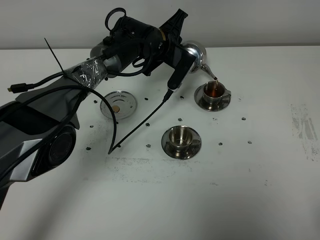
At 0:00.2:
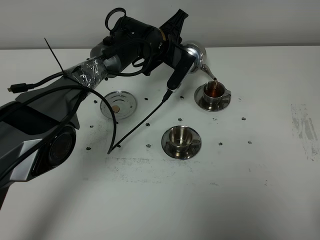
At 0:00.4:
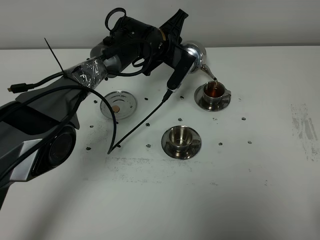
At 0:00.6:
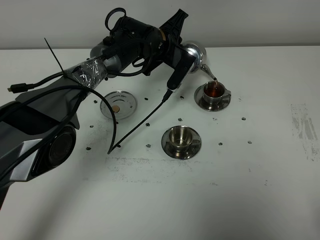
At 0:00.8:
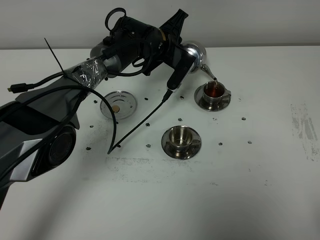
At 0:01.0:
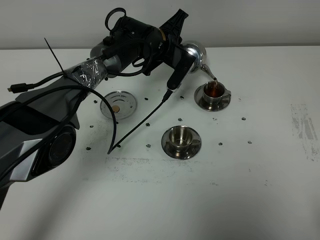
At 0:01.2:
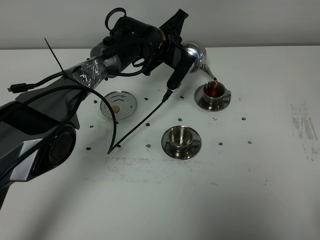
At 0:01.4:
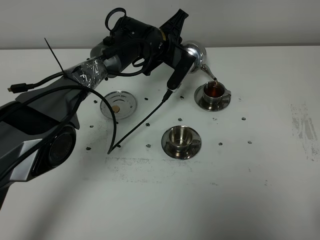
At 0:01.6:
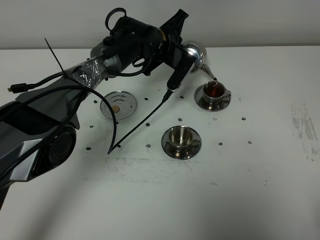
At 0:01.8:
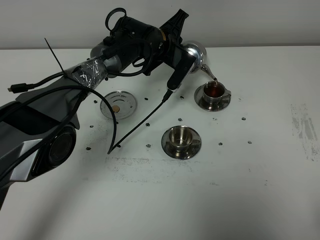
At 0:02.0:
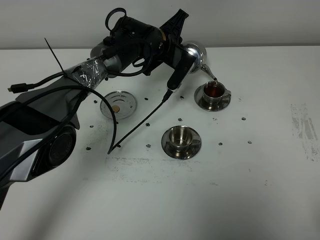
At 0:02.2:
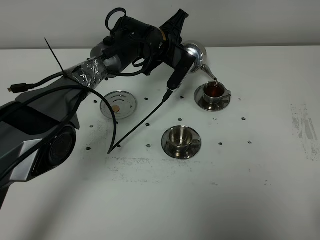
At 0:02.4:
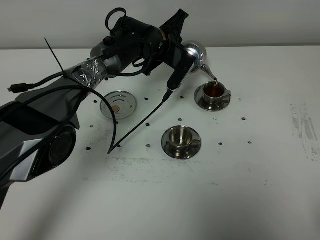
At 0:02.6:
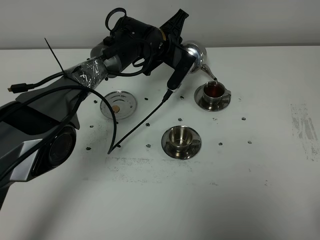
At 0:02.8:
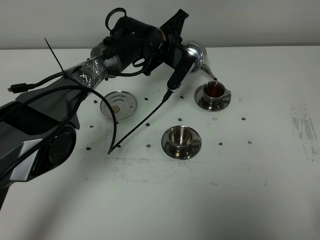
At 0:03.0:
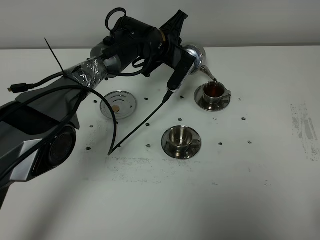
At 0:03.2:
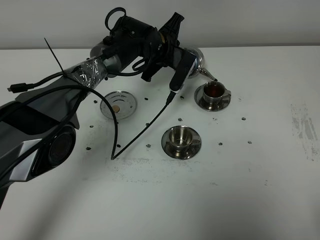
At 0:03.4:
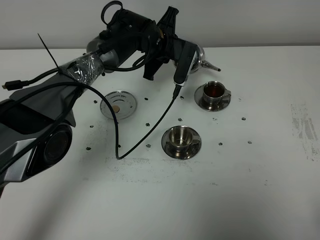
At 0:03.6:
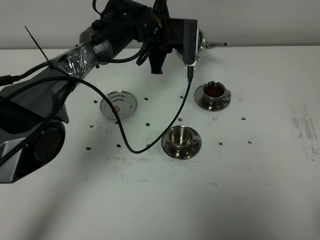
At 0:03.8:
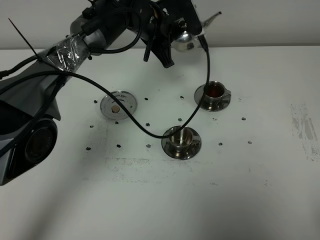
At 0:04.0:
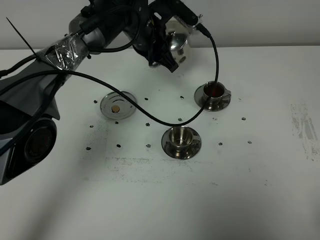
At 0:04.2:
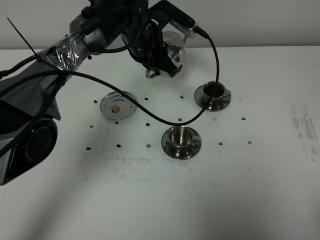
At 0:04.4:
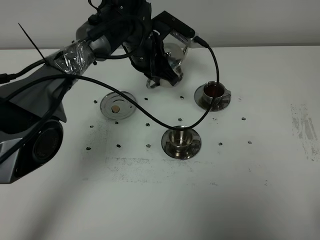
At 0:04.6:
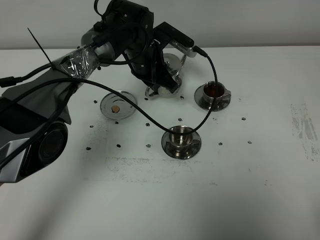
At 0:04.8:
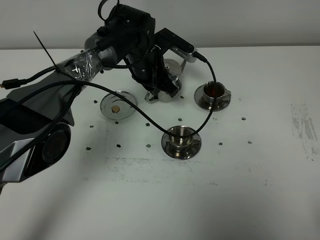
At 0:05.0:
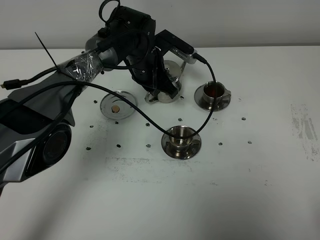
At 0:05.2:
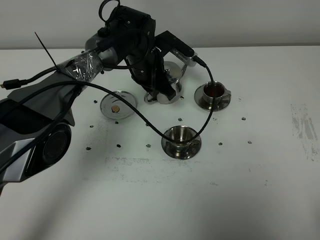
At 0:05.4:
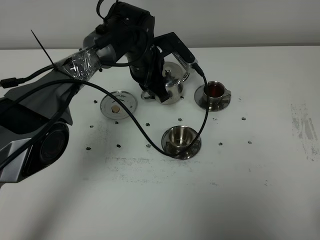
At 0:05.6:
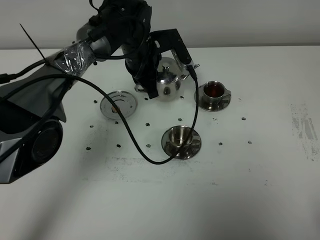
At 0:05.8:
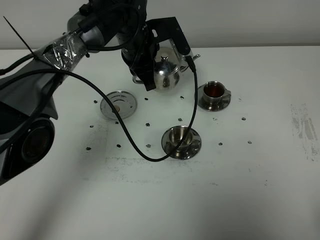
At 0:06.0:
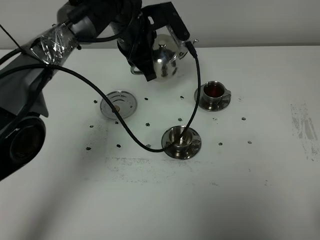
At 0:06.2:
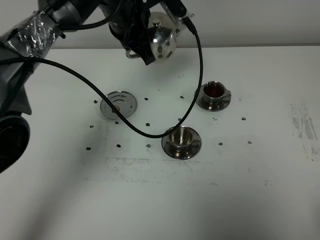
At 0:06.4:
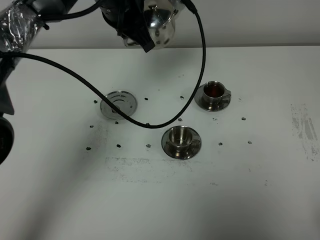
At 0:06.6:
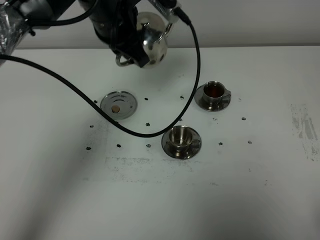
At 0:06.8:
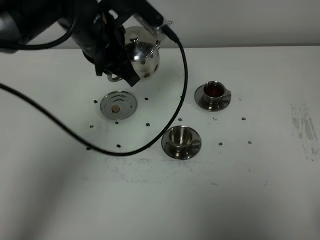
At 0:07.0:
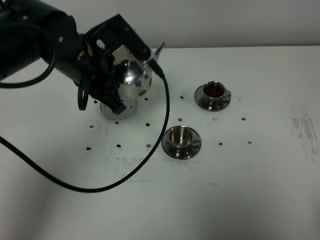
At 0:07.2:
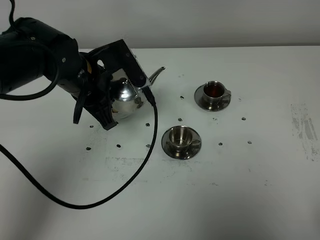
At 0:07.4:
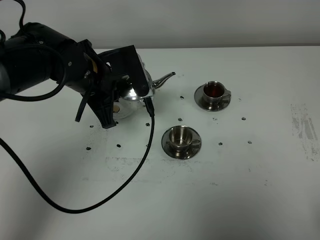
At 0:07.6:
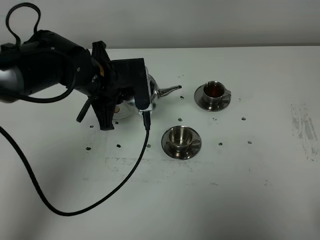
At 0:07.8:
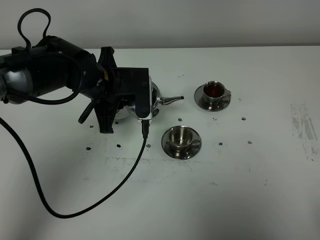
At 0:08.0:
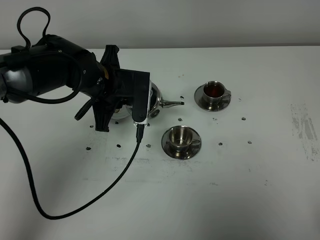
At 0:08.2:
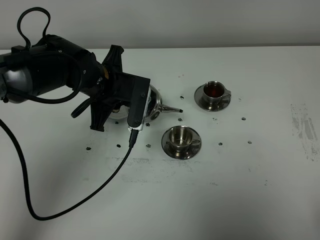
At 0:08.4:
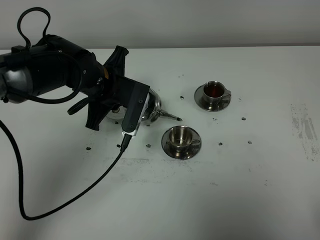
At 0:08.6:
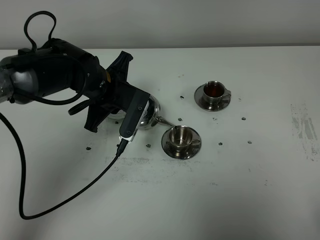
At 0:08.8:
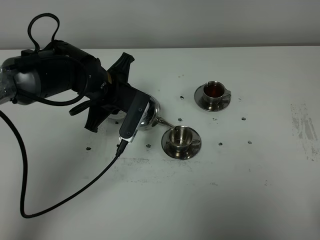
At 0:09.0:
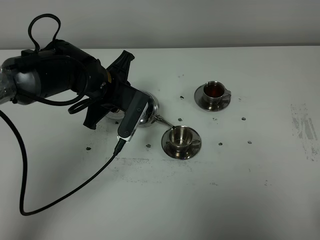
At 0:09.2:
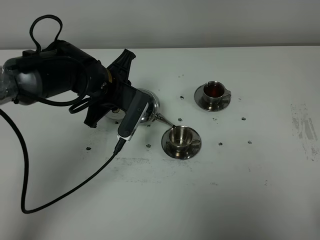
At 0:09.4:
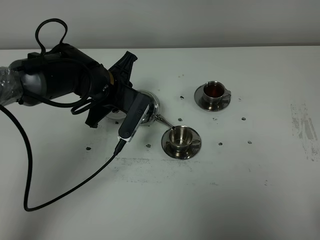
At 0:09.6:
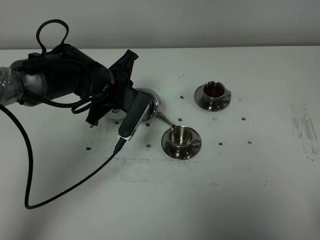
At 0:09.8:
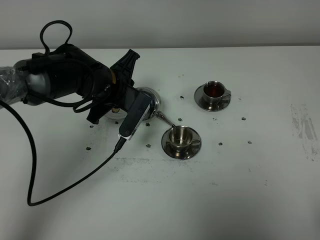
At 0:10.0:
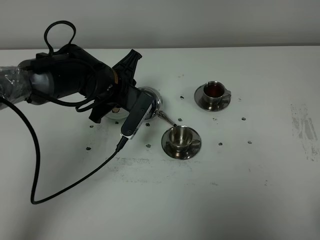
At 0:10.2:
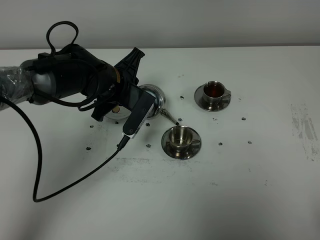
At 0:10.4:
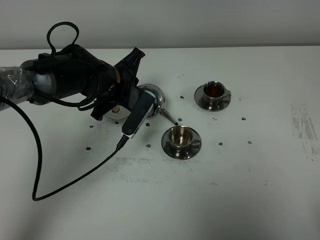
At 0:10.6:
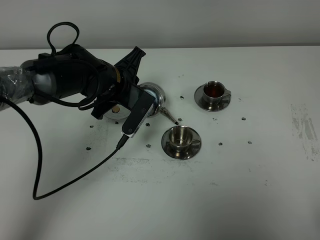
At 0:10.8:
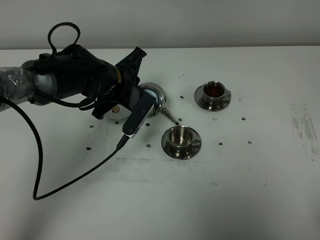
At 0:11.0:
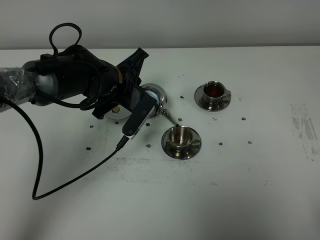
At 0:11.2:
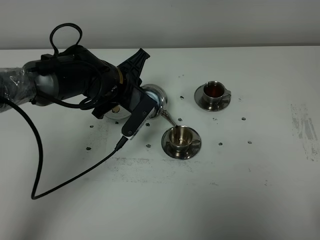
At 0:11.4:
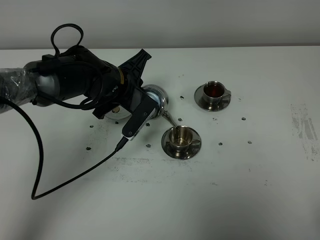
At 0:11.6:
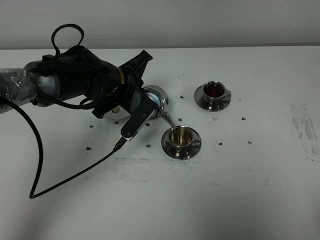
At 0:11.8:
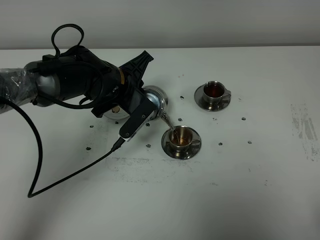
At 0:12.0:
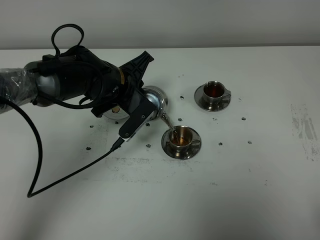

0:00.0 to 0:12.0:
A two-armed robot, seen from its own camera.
Task of the whole recording: grasp the stainless steel teapot and pour the tea into the two stainless steel teacups one by one, put the stainless steel teapot back in its original place.
0:00.0 to 0:03.0: Neither gripper changes place.
0:03.0 to 0:04.4: The left gripper moves approximately 5 cm.
0:04.4 to 0:06.0: The left gripper goes roughly 5 cm upward.
0:06.0 to 0:07.6: The left gripper travels backward and to the left by approximately 10 cm.
0:09.0 to 0:12.0: The grippers make only small movements.

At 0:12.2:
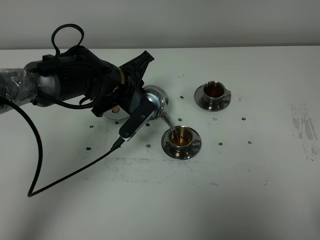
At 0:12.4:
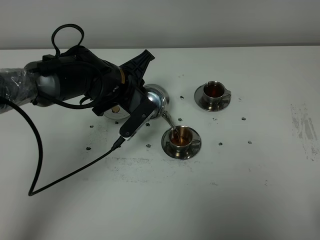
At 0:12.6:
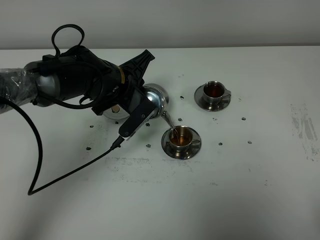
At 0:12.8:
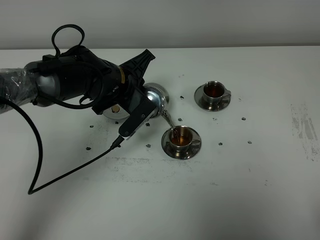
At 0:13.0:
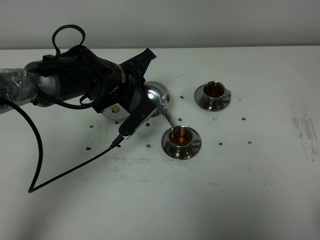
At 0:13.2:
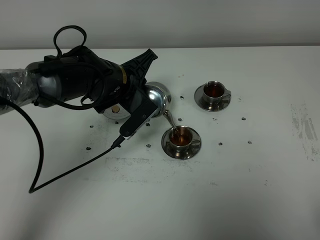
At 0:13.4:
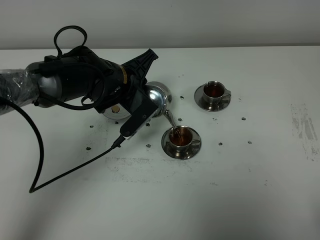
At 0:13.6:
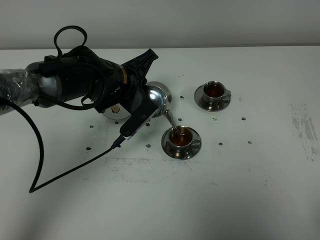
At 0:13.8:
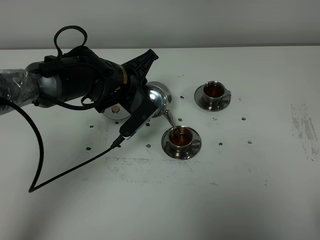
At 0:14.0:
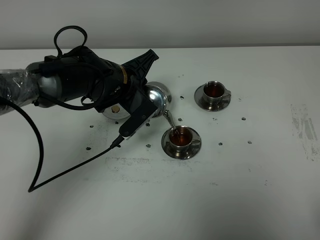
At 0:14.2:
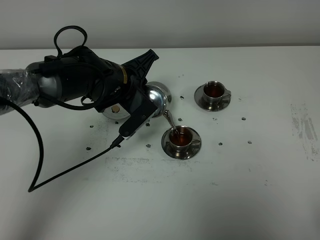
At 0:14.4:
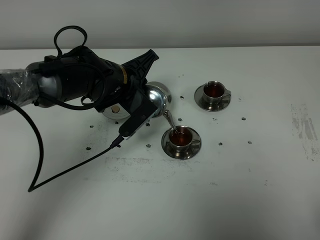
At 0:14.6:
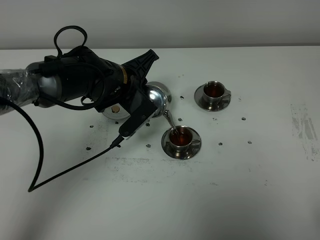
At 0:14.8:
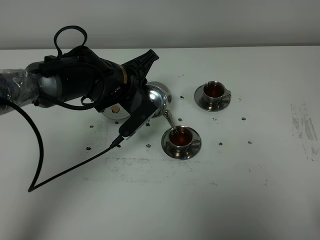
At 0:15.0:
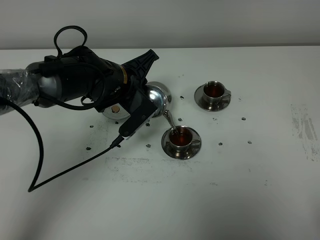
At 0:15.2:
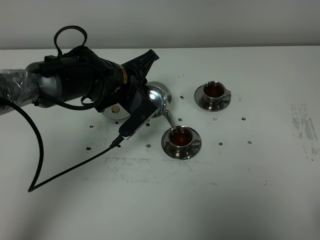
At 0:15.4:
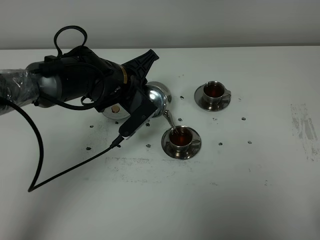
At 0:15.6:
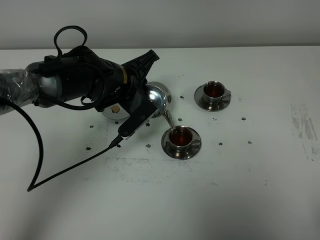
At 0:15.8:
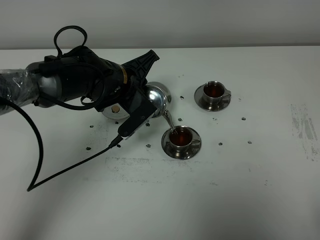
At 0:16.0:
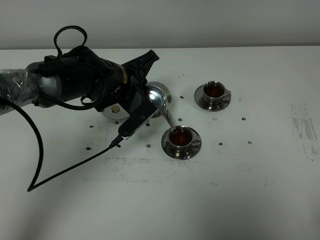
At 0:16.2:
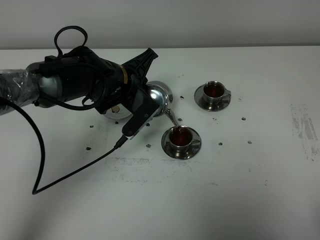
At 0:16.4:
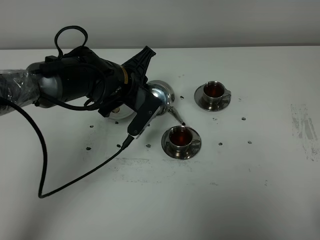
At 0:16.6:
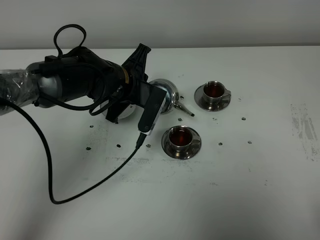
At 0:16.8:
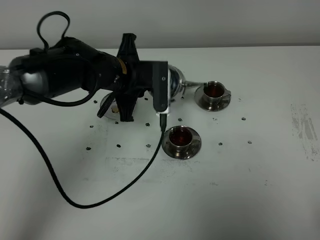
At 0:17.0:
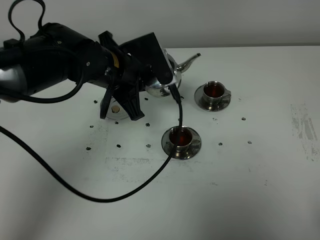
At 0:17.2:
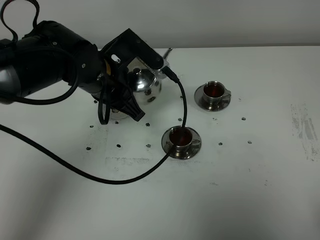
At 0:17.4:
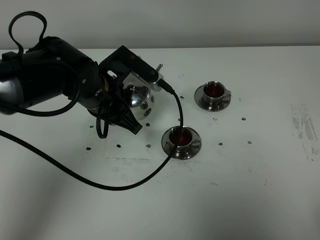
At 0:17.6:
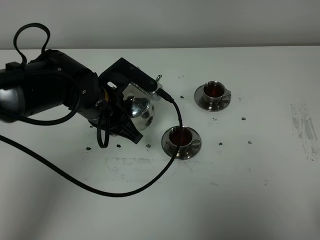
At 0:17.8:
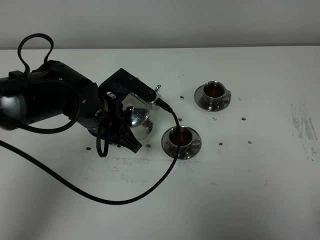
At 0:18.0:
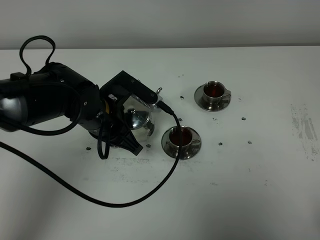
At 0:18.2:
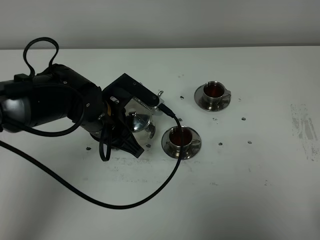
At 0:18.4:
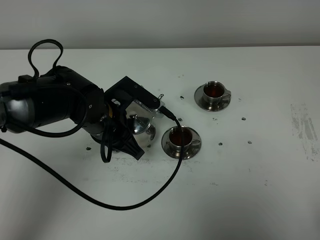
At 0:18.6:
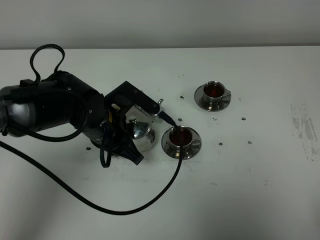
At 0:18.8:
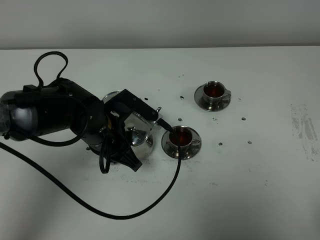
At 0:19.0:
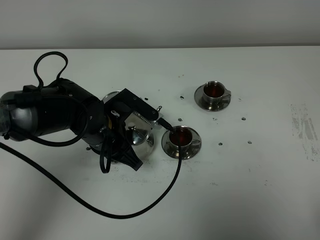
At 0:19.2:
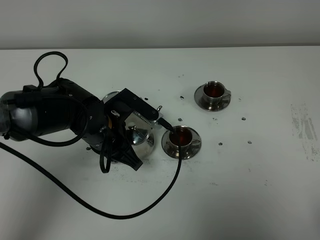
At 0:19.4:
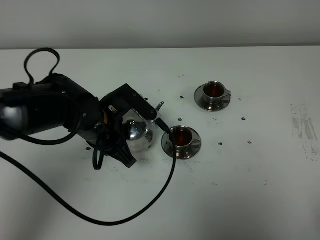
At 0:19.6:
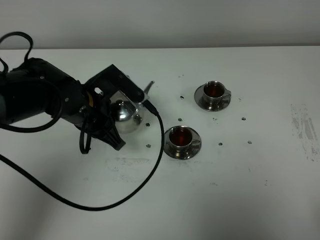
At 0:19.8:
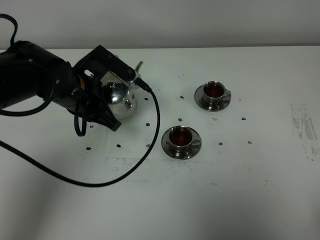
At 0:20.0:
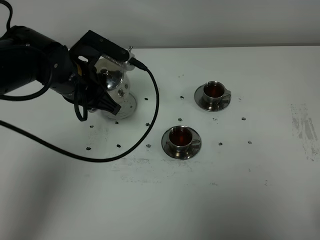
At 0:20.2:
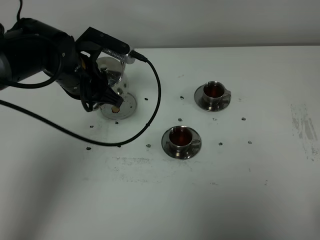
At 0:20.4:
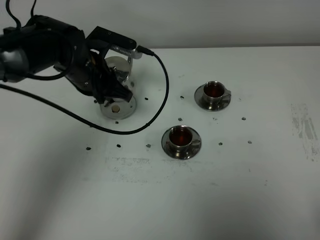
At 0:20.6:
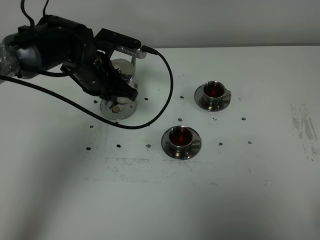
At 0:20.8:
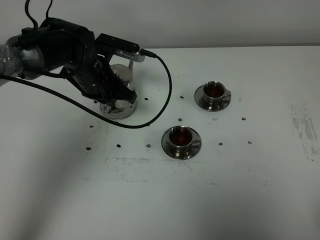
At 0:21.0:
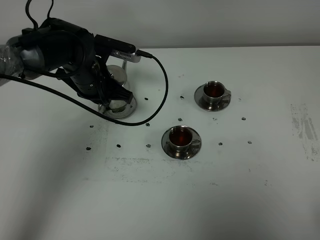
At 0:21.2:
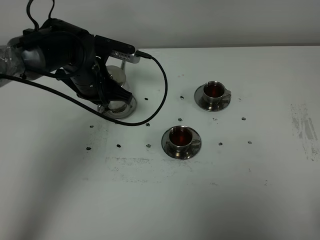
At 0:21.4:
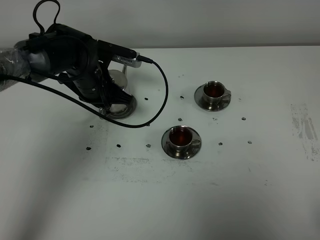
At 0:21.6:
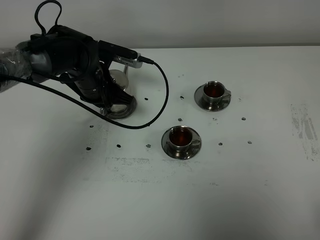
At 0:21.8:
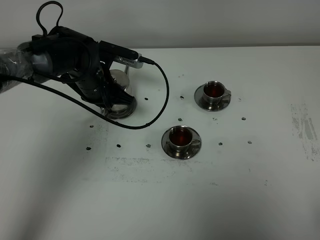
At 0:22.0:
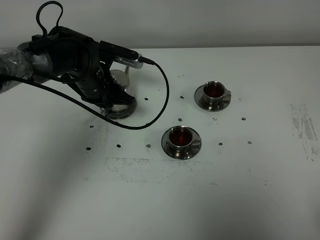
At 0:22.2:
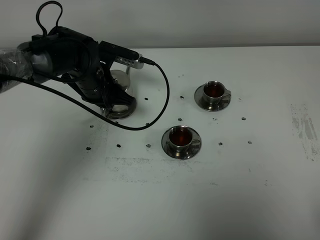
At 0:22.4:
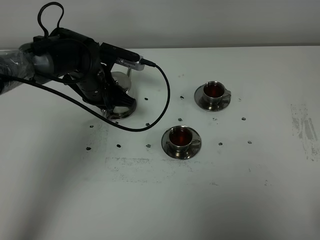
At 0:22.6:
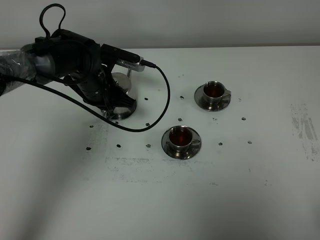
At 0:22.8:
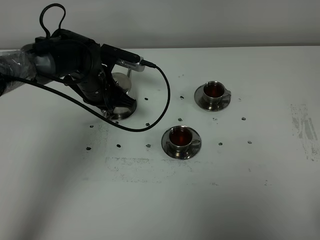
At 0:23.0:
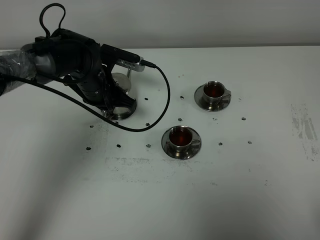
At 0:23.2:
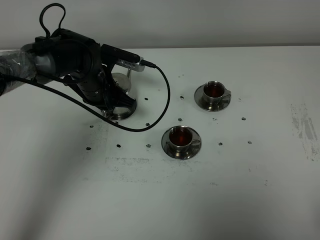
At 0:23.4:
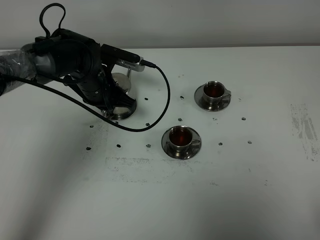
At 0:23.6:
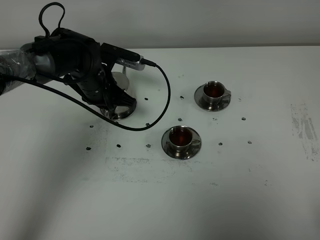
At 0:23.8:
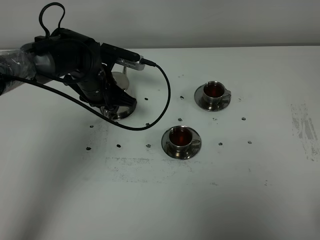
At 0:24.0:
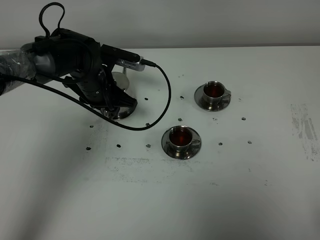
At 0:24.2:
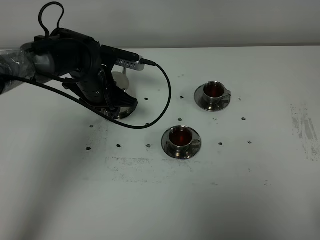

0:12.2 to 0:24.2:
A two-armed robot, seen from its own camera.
Task of the whole recording: grasp the stainless steel teapot and pour the tea into the two stainless steel teacups one by one, put the stainless steel teapot back in its original place.
Step, 0:12.2 to 0:16.4: Pour tea into the teacup with the left gripper.
0:12.2 to 0:13.8: Neither gripper changes place.
0:13.8 to 0:15.2: Both grippers stay put.
0:16.6 to 0:18.2: The left gripper goes roughly 5 cm backward.
0:18.2 to 0:19.8: The left gripper changes place by approximately 5 cm.
0:19.8 to 0:21.2: The left gripper shifts approximately 10 cm forward.
0:21.2 to 0:22.6: The grippers stay close to where they were, moving slightly.
0:22.6 to 0:24.2: The left gripper opens.
